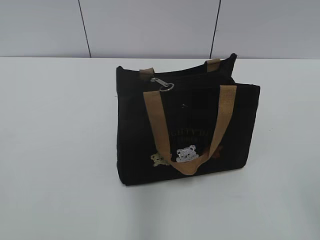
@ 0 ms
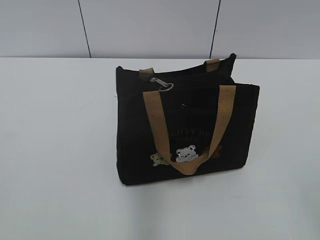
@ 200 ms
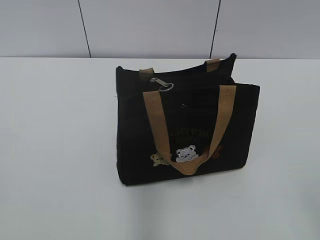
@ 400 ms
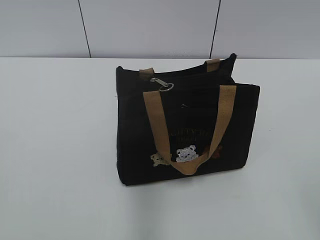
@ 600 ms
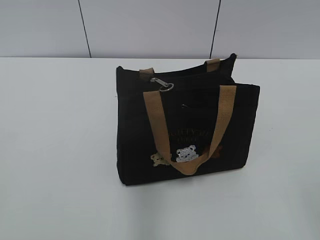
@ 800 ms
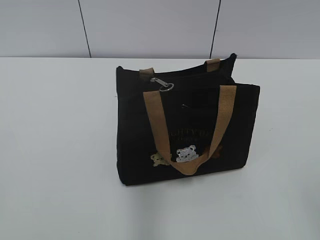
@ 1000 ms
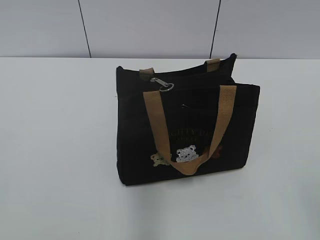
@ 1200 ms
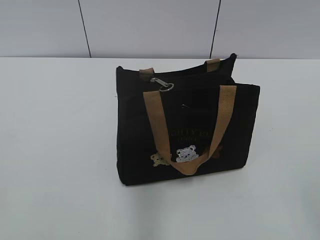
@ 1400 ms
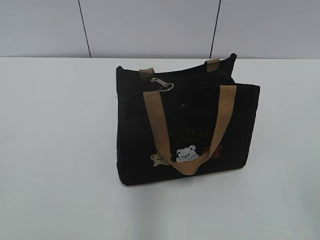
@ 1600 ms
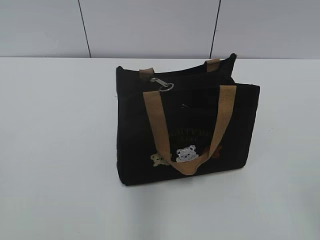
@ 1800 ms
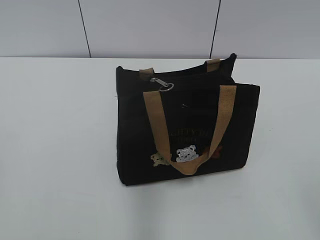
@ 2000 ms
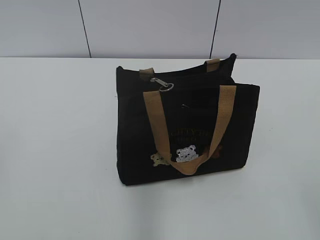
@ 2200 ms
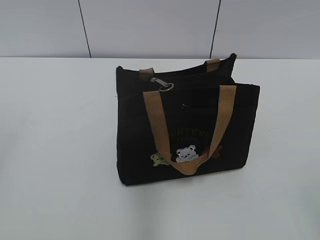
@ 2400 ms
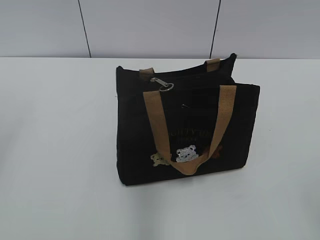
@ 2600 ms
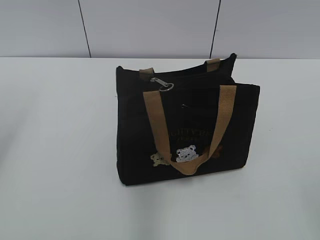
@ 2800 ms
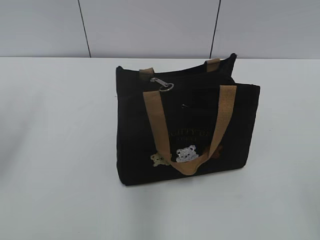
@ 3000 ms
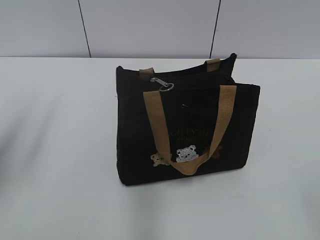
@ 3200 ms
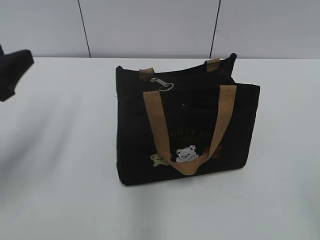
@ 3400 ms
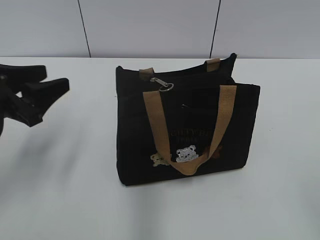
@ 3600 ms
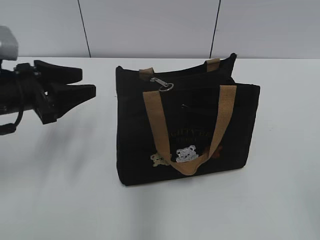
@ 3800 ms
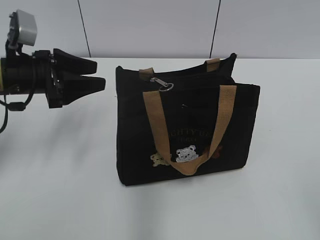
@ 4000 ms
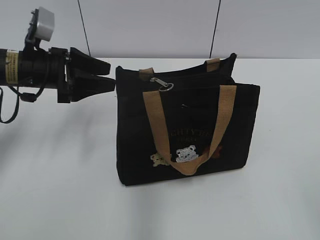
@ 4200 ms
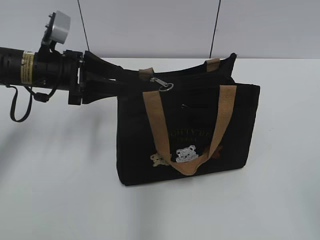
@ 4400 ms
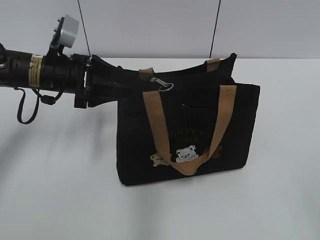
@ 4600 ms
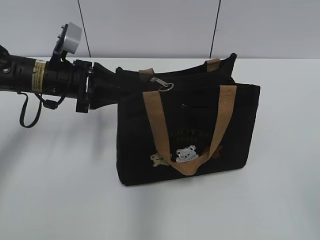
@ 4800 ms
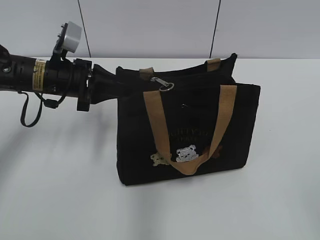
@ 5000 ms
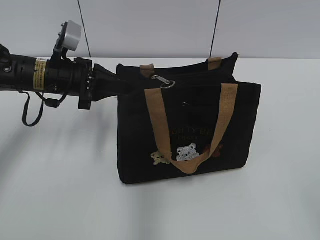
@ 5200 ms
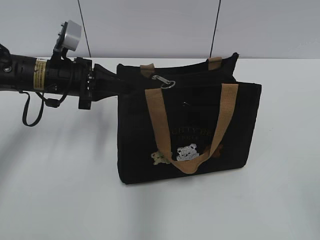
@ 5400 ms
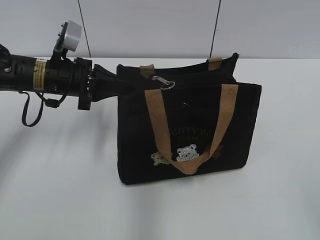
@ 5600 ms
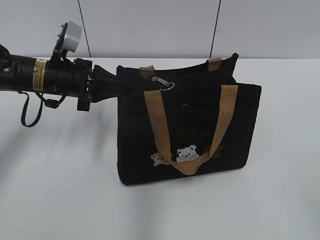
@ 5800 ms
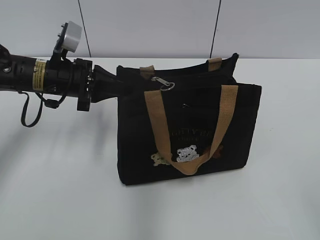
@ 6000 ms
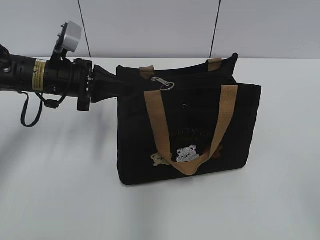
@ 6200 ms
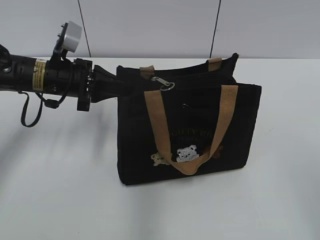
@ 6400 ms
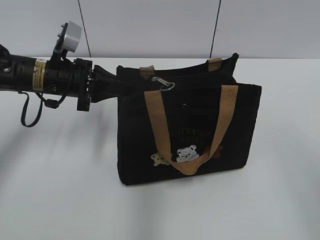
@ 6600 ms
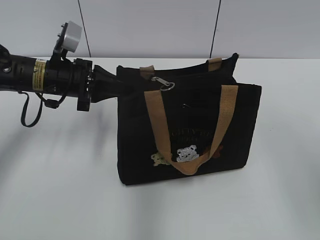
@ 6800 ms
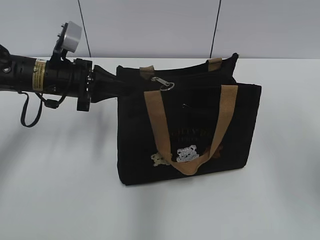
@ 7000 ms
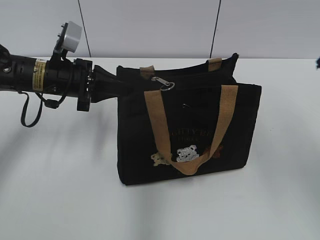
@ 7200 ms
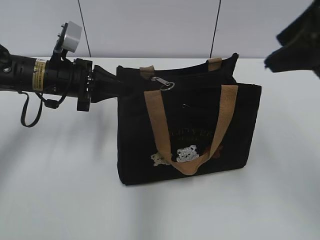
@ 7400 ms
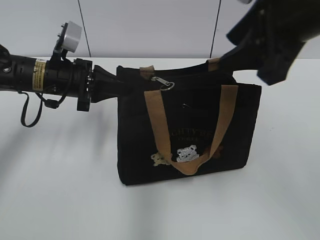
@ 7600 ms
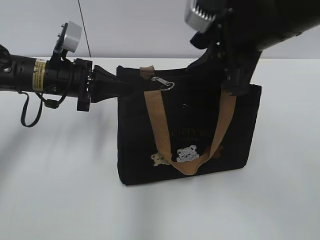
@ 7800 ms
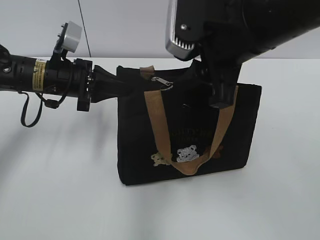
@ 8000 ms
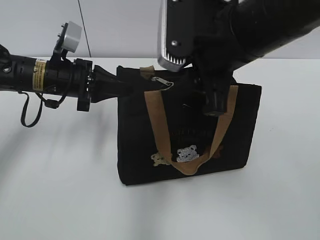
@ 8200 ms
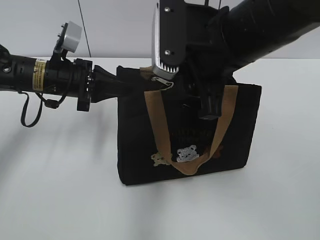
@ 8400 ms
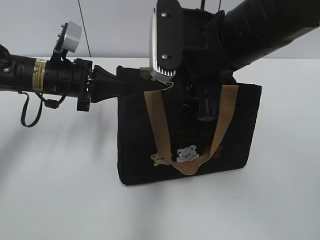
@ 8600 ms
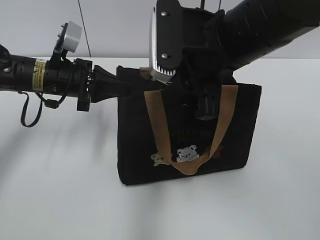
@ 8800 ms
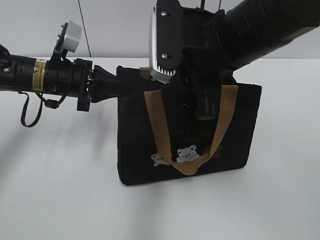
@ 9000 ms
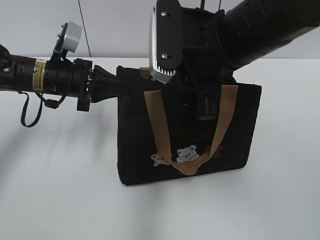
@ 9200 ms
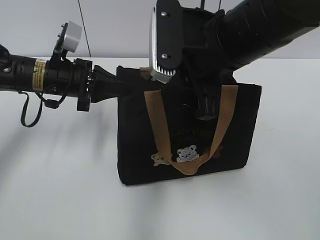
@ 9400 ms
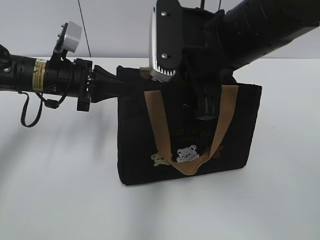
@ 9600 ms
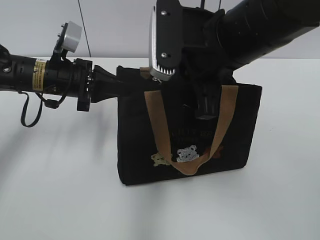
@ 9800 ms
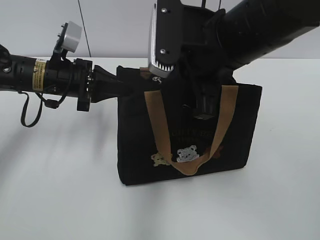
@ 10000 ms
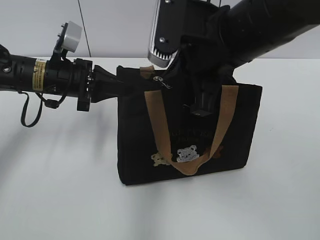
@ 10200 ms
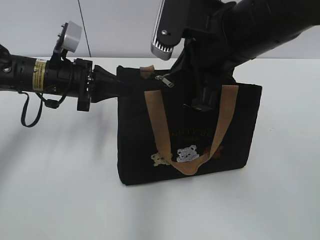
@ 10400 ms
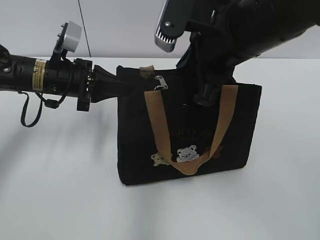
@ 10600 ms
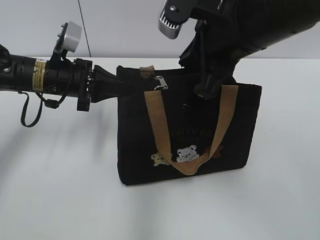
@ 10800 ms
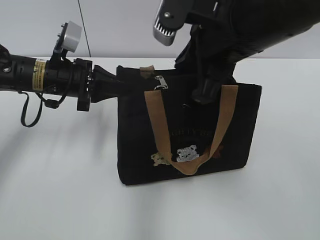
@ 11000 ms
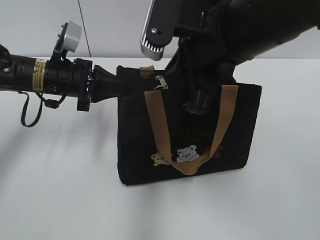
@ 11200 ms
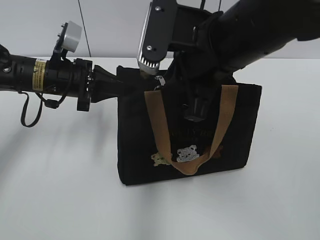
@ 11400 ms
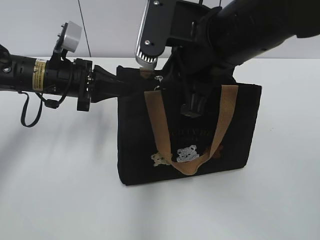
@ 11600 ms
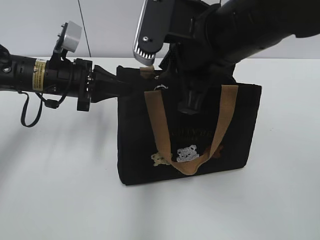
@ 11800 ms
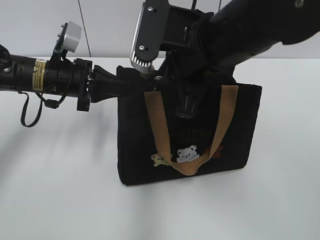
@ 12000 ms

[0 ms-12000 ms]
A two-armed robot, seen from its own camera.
1600 ms to 3000 ms: The left gripper is displaced forward by roughly 20 cm.
3000 ms to 4400 ms: The left gripper heads forward, to the right and downward, covering some 25 cm.
4400 ms to 6000 ms: The left gripper closes up.
6000 ms to 7600 ms: The right gripper is displaced forward and to the left by approximately 30 cm.
7600 ms to 9000 ms: The right gripper moves to the left and downward, approximately 10 cm, and closes its fingers.
9000 ms to 10400 ms: The right gripper closes up.
10400 ms to 12000 ms: The right gripper opens its fingers.

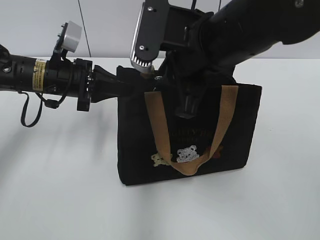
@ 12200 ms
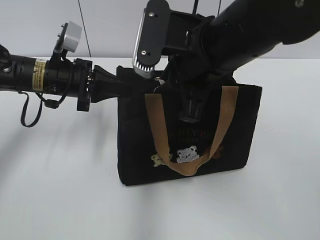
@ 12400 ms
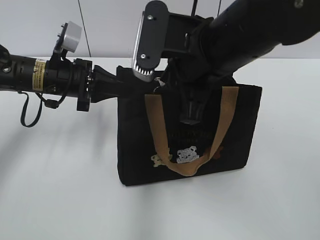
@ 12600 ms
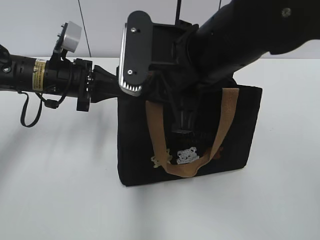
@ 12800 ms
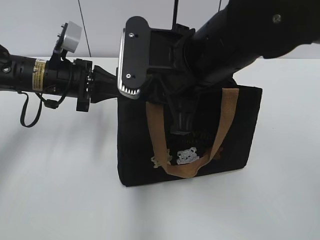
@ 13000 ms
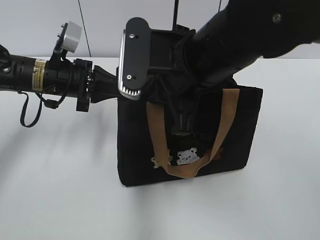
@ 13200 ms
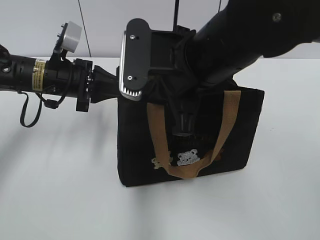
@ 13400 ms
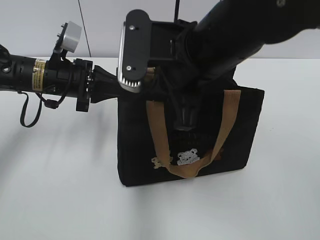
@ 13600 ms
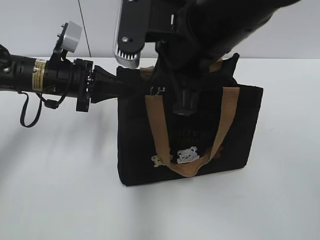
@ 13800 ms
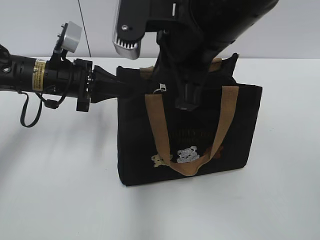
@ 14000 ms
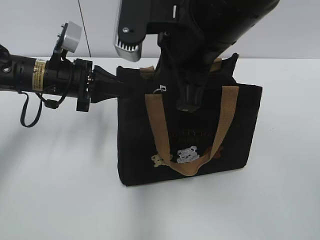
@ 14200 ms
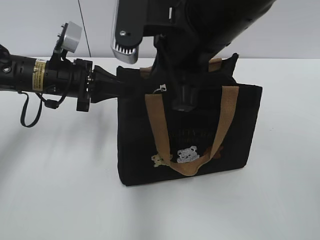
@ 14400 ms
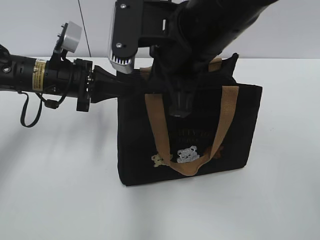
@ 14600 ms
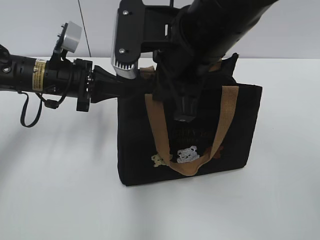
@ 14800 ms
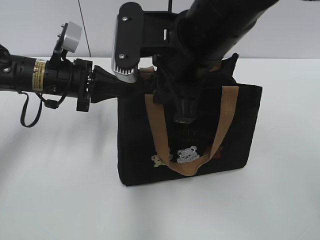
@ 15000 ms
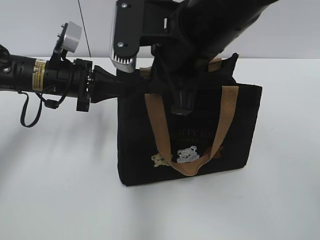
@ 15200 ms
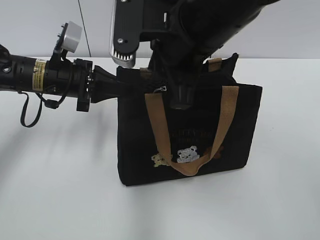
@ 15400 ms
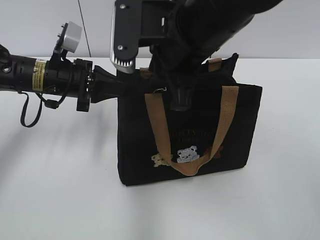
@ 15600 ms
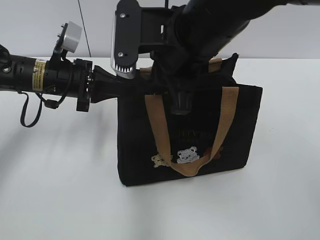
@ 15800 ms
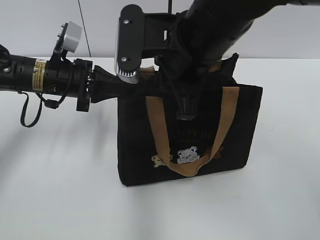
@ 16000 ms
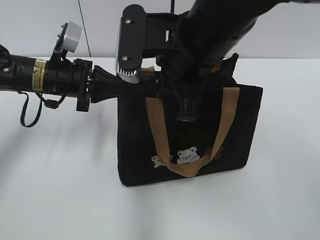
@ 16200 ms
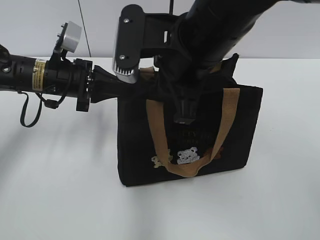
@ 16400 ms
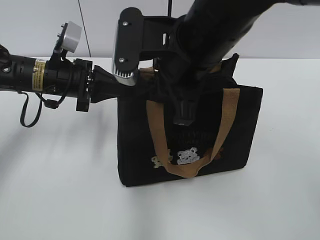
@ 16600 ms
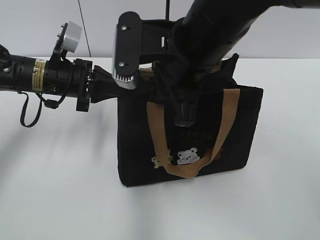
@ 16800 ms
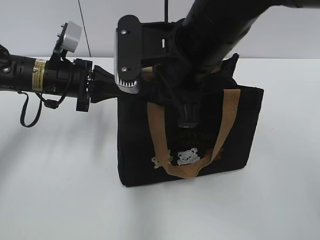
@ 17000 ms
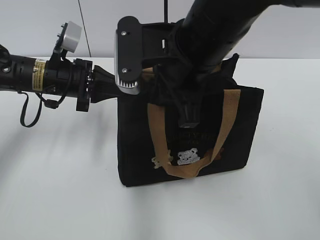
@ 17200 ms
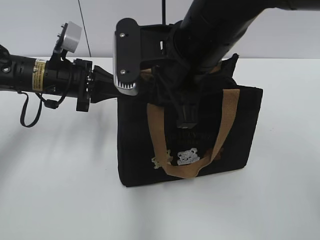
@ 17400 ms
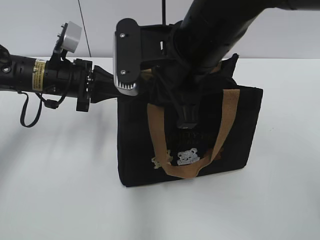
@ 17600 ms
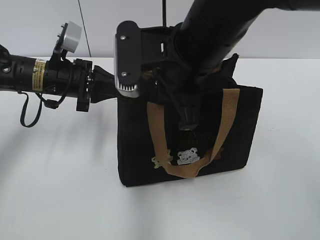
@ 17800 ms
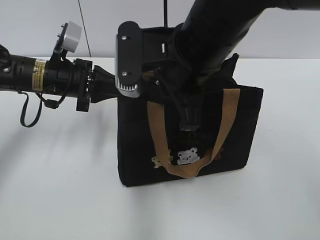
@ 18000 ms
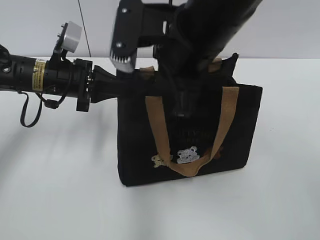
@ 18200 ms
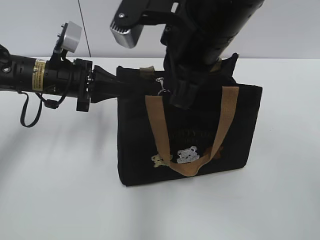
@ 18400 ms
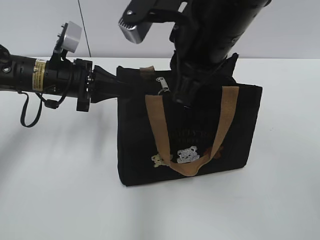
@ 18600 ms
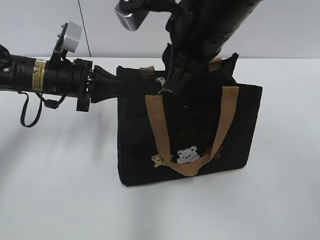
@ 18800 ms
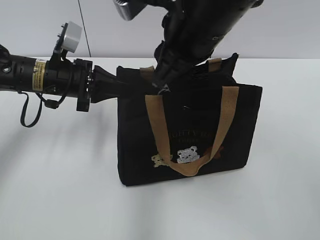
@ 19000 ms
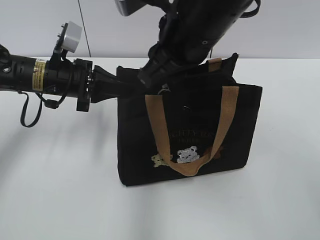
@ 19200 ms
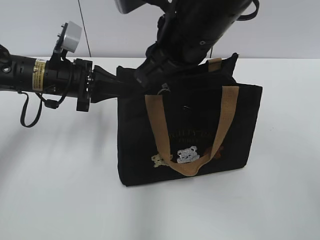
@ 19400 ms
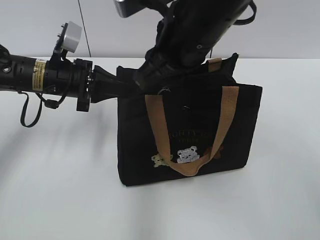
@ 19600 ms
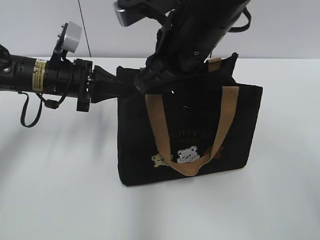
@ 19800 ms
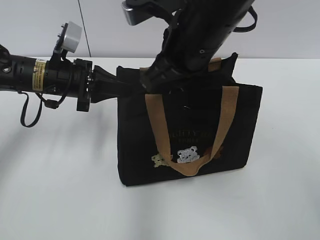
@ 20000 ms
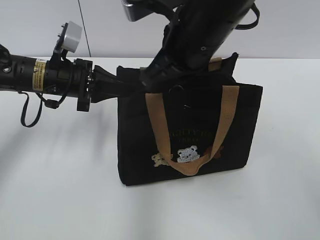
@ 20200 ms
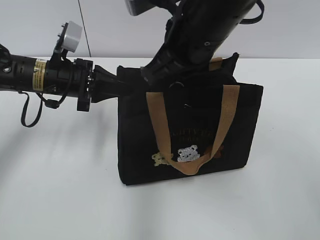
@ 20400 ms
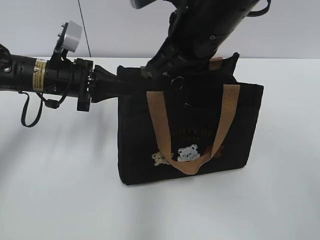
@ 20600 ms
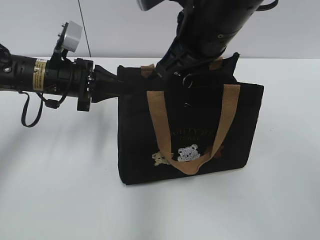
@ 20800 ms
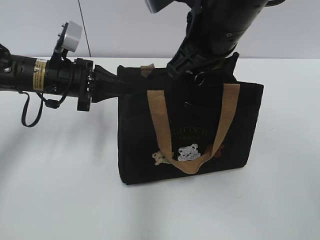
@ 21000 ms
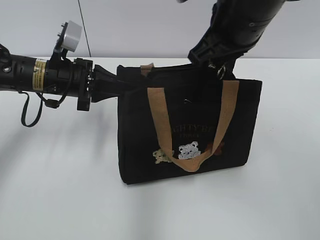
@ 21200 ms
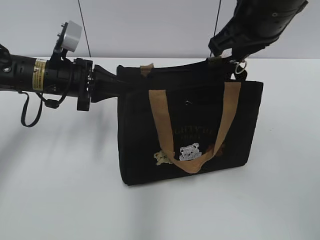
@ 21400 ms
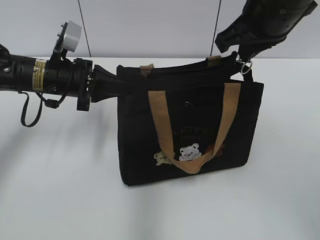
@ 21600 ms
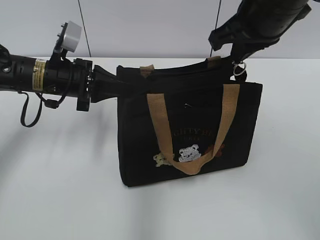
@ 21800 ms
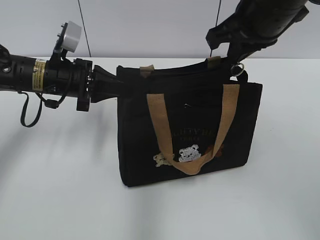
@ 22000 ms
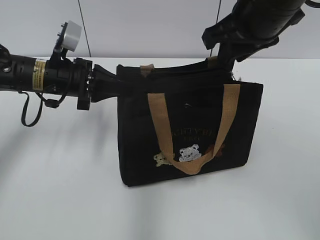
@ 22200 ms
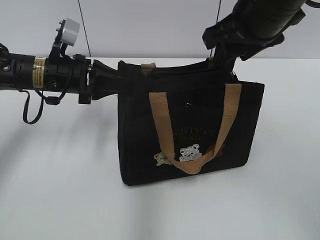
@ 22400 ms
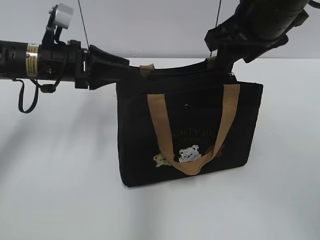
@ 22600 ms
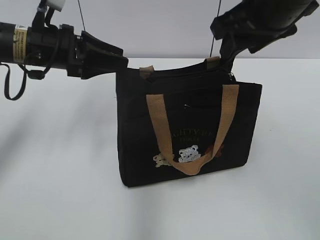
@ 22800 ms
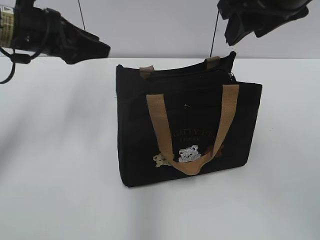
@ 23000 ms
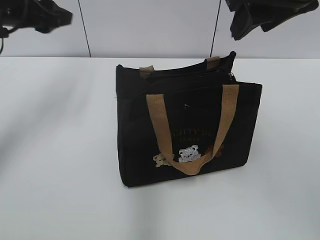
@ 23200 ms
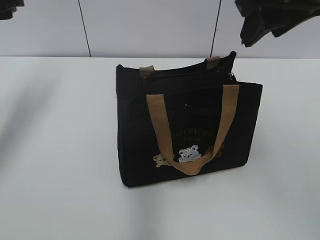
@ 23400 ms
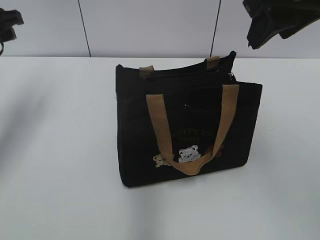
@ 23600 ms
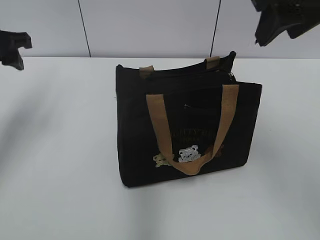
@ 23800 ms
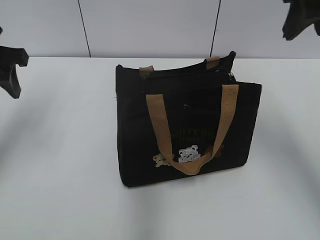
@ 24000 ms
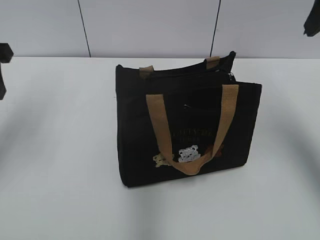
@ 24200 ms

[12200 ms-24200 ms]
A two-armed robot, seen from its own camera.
Step, 12200 ms to 22200 ms: Pull open the zipper with your right hand.
Step, 22400 ms to 22600 ms: Hold the bag with your left hand.
12200 ms to 13800 ms: The right gripper closes its fingers.
13800 ms to 15200 ms: The right gripper opens up.
15200 ms to 16600 ms: The grippers move only a little.
16600 ms to 18200 ms: The right gripper closes up.
18200 ms to 19800 ms: The right gripper opens.
19800 ms to 21200 ms: The right gripper is displaced to the right by roughly 5 cm, and closes.
21200 ms to 22600 ms: The right gripper opens up; the left gripper opens.
22600 ms to 24200 ms: The left gripper goes some 15 cm upward, to the left and backward. The right gripper shifts some 10 cm to the right and upward.
